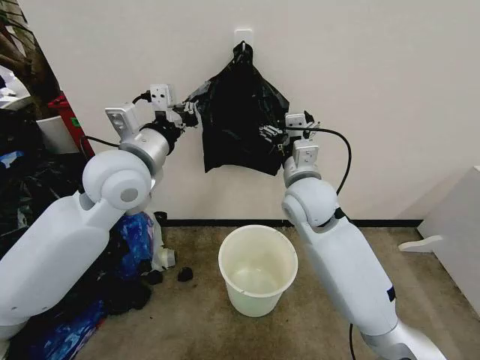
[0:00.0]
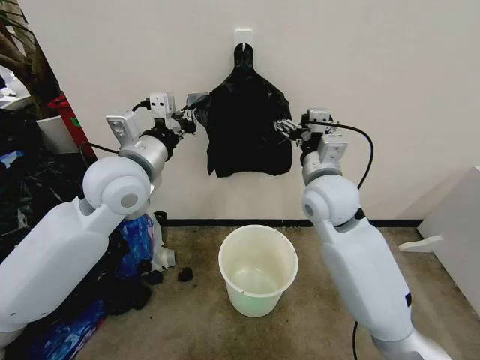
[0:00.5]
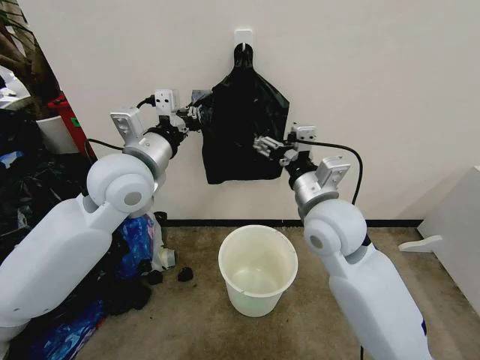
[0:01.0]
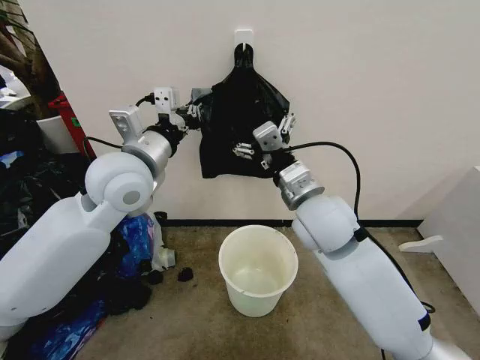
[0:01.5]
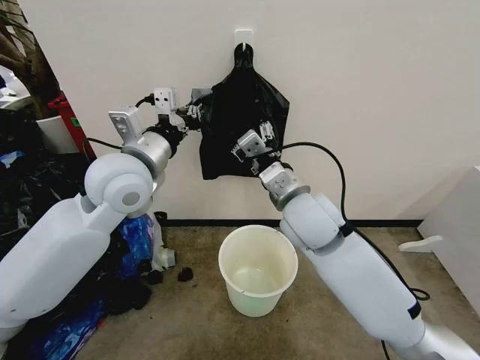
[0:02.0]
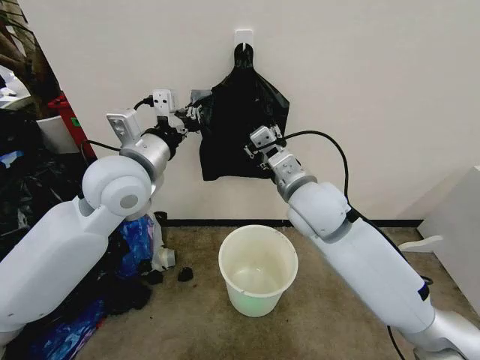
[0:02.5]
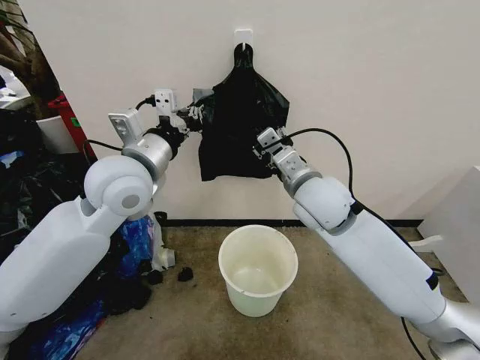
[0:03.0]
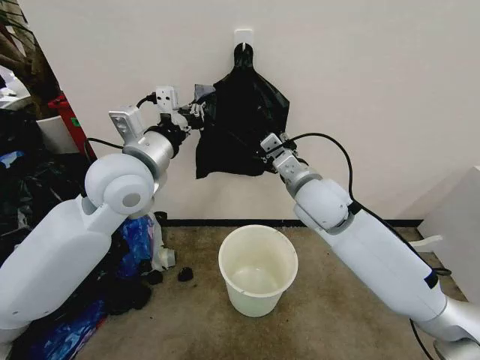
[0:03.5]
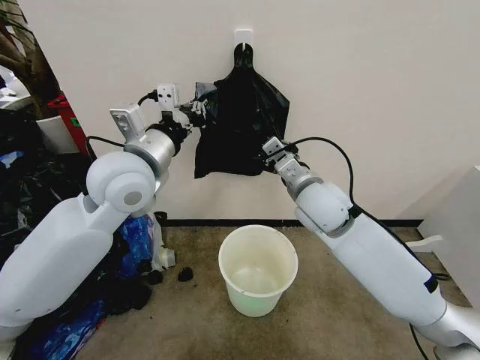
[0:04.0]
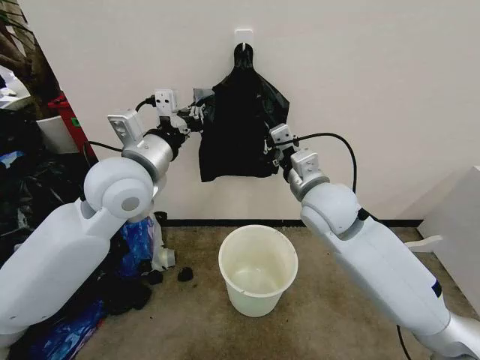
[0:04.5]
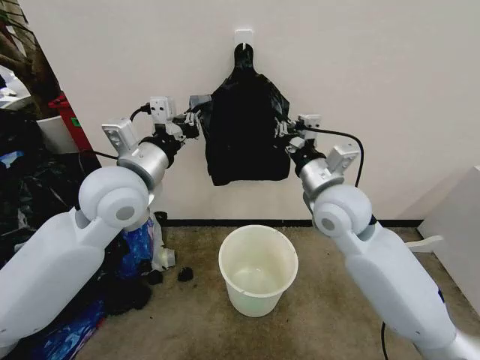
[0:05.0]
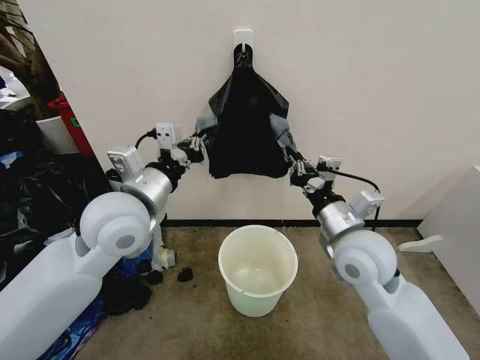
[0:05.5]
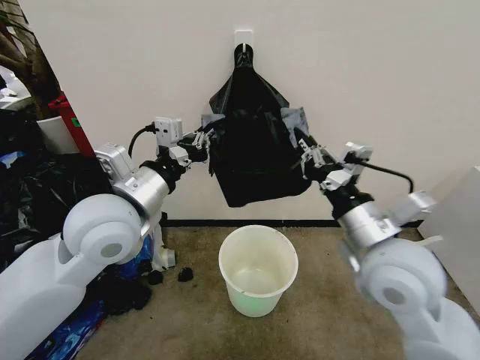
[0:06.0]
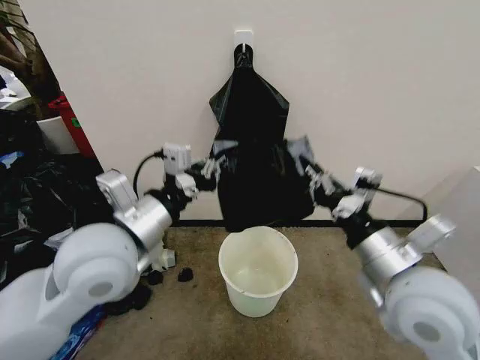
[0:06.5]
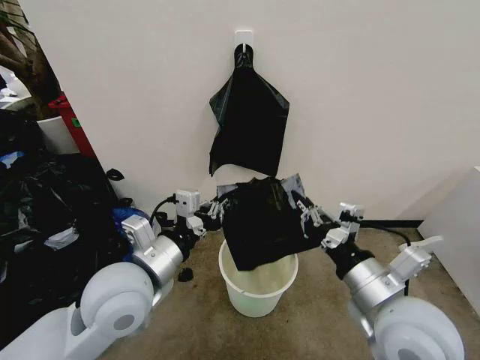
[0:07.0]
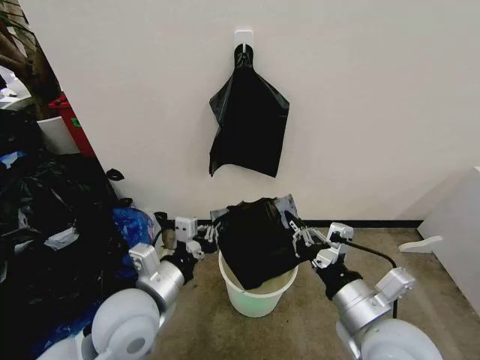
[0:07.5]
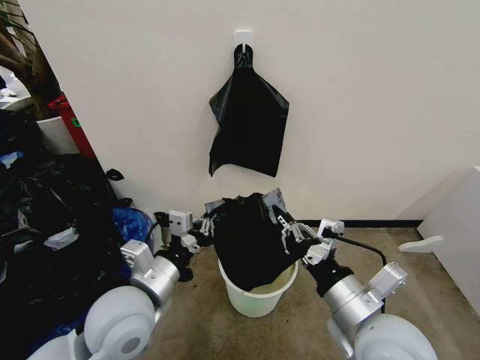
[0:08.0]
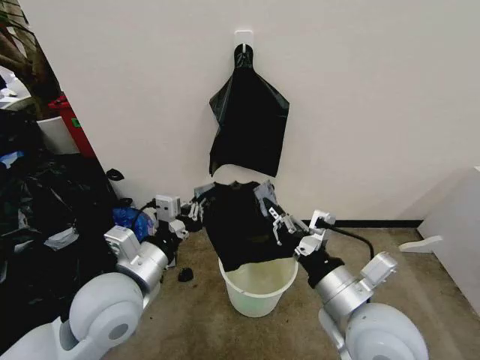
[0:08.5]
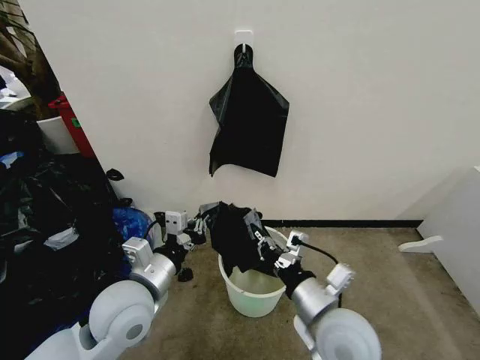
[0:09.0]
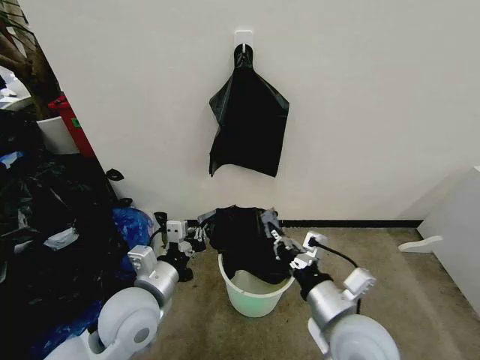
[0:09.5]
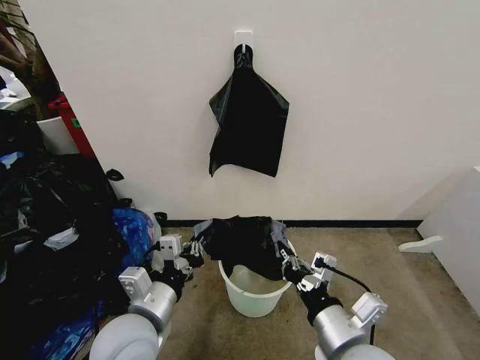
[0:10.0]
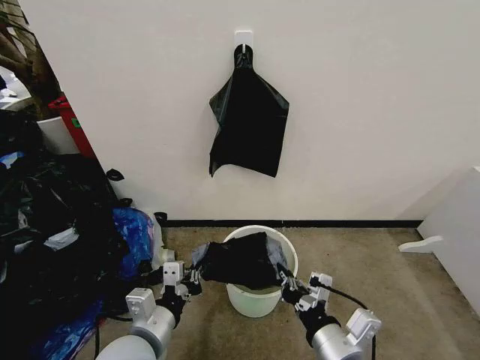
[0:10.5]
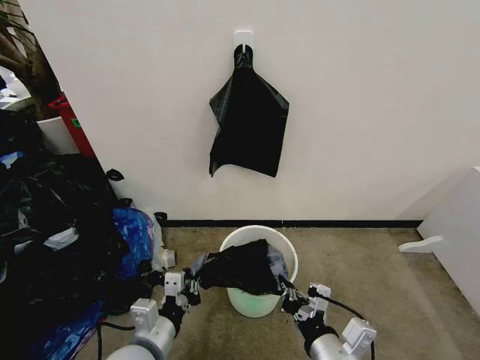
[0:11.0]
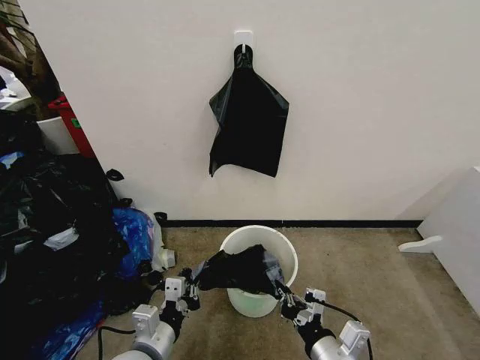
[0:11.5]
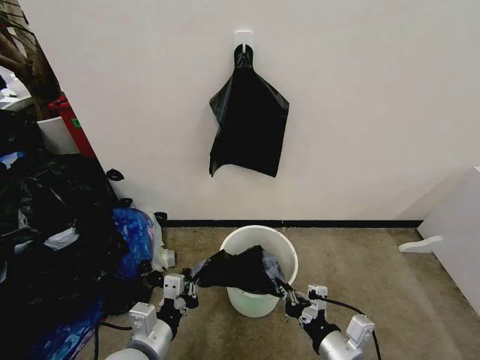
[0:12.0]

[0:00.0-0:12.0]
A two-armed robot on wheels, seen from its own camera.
Task of the whole recording: Place the garbage bag over the trash bin.
0:00.0 to 0:02.0: The right gripper shifts some 5 cm backward, and closes.
0:02.0 to 0:04.0: The right gripper shifts by approximately 5 cm, and closes up.
0:04.0 to 0:06.0: The right gripper heads backward and to the right, covering about 15 cm. Meanwhile the left gripper heads backward, covering about 5 cm.
0:06.0 to 0:08.0: The right gripper travels backward and downward by approximately 10 cm; the left gripper moves downward and backward, roughly 15 cm.
0:08.0 to 0:10.0: The right gripper moves some 5 cm.
0:10.0 to 0:12.0: The grippers both shift downward by some 10 cm.

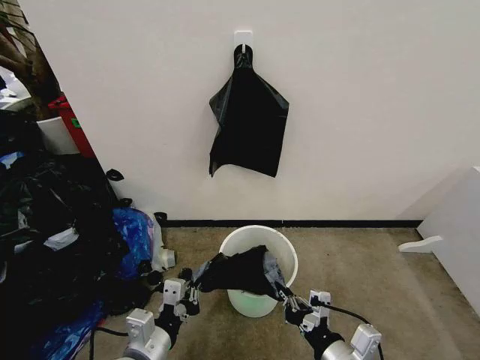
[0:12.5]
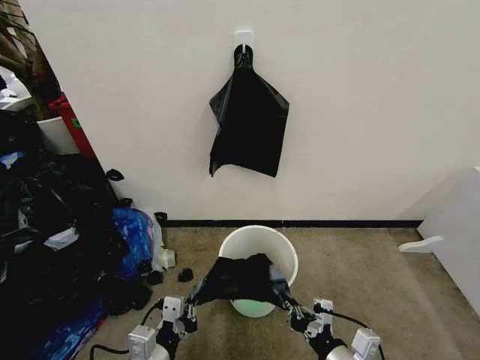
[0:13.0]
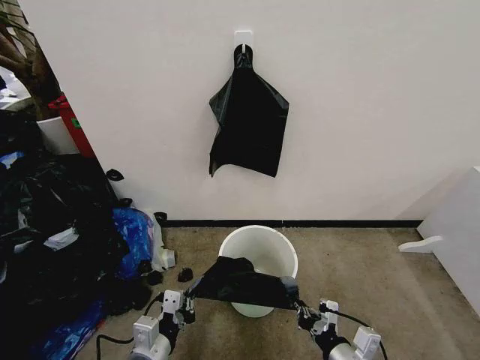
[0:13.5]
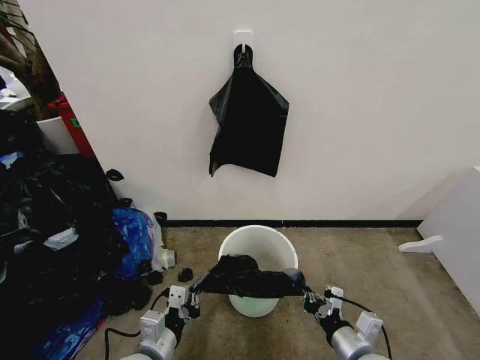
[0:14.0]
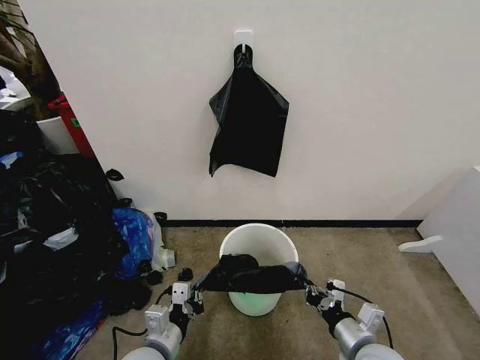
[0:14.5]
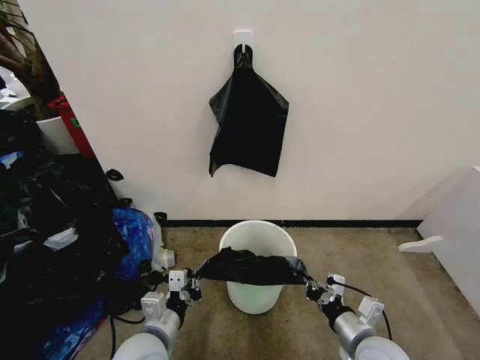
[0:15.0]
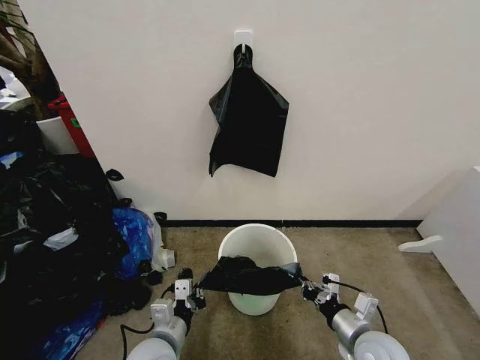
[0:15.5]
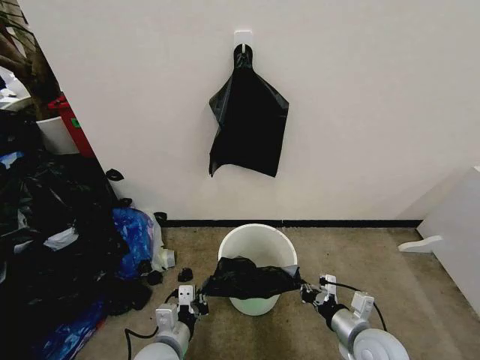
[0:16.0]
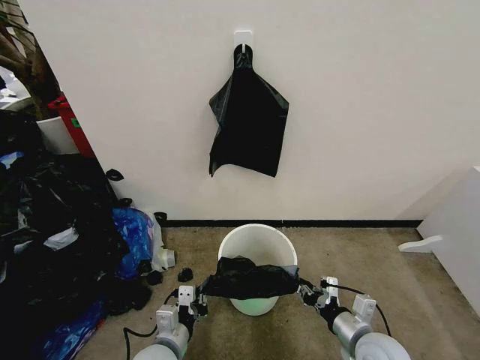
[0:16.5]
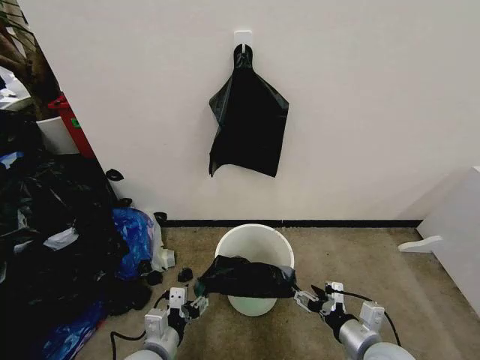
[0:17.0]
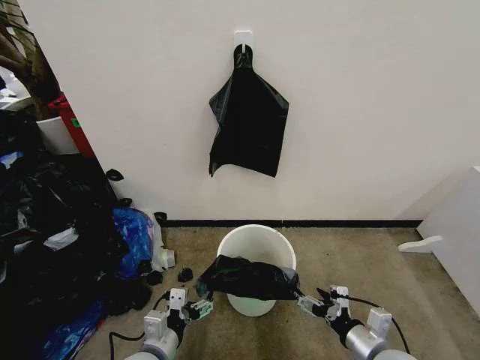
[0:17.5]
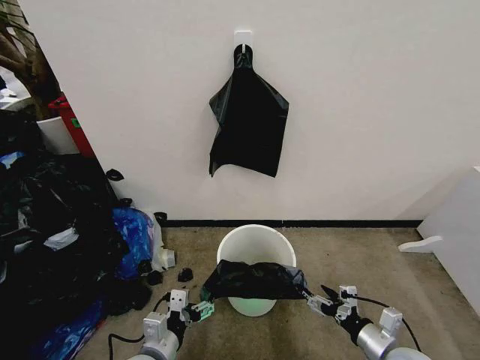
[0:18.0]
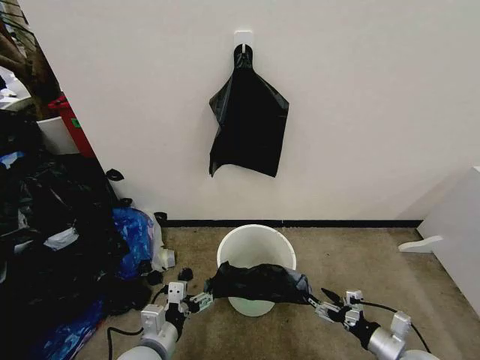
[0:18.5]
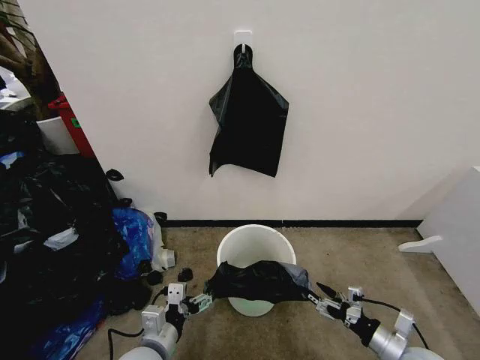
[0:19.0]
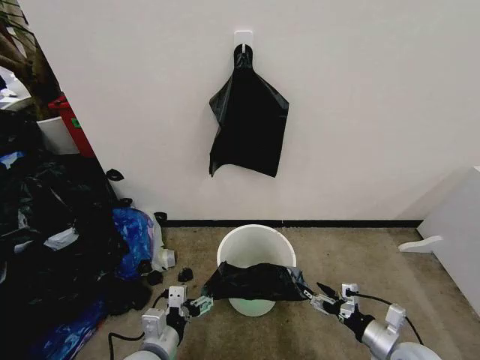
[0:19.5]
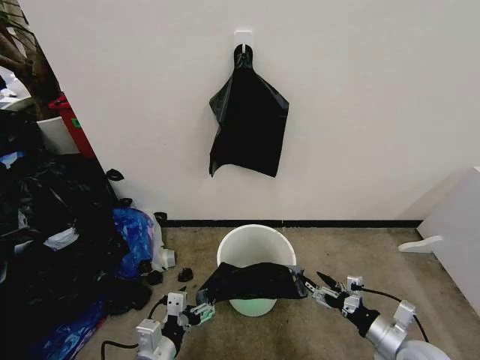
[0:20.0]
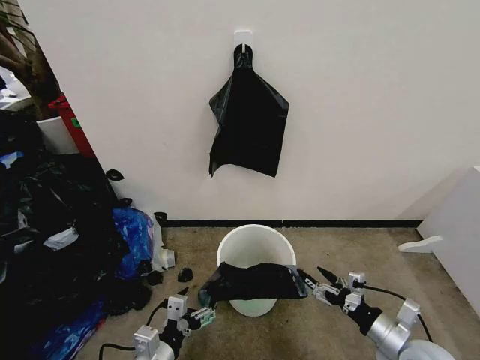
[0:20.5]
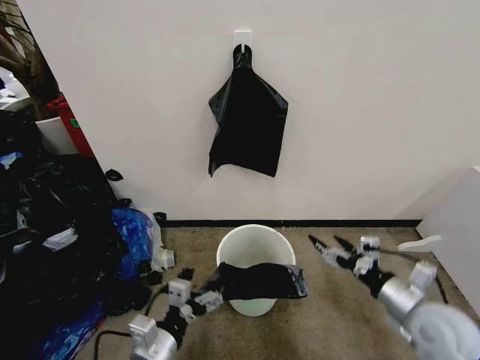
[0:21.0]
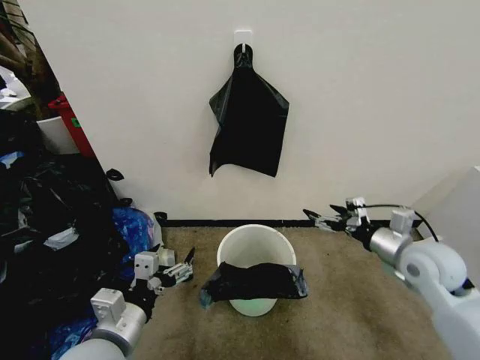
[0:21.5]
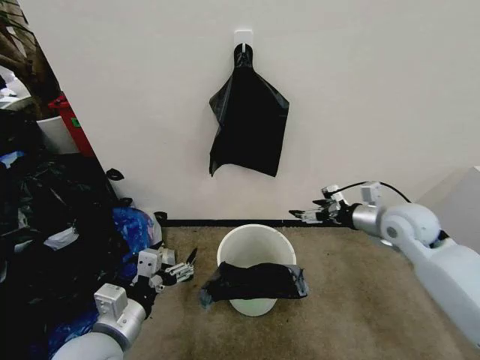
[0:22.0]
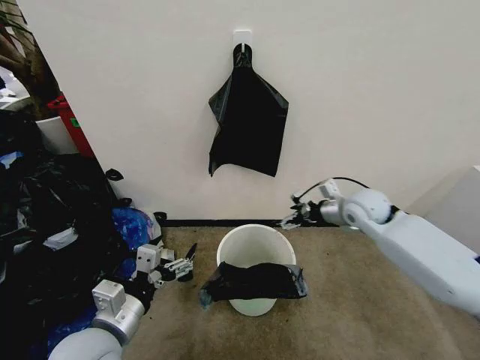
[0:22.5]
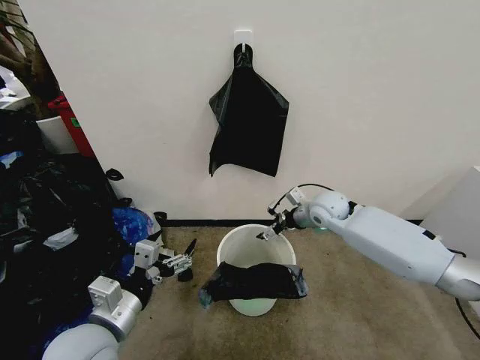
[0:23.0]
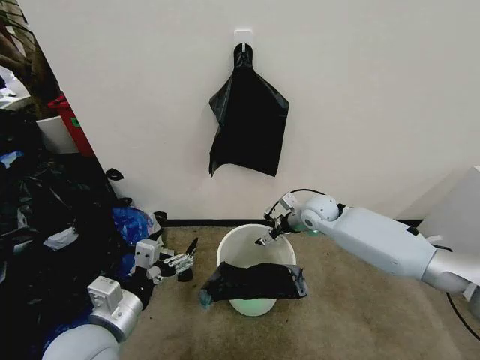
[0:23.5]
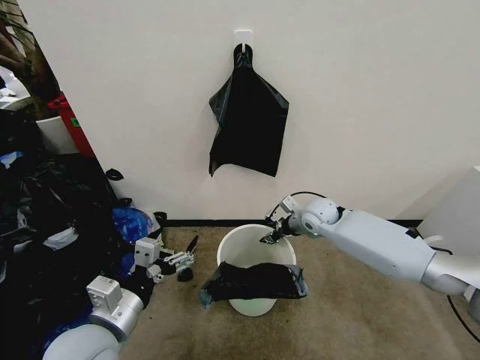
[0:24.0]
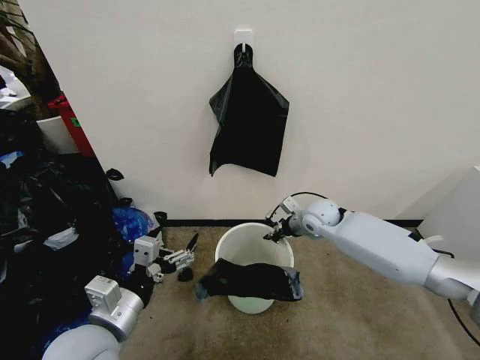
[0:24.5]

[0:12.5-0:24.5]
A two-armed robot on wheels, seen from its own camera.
Task of the whole recording: Place the garbage bag over the trash bin.
0:12.5 to 0:14.5: The right gripper shifts approximately 10 cm downward, forward and to the right; the left gripper moves downward, some 5 cm.
0:14.5 to 0:16.5: The grippers make only small movements.
0:16.5 to 0:18.5: The left gripper opens. Meanwhile the right gripper heads to the right, covering roughly 10 cm, and opens up.
0:18.5 to 0:20.5: The right gripper goes about 5 cm upward.
0:20.5 to 0:22.5: The left gripper heads upward, covering approximately 10 cm. The right gripper goes about 30 cm forward and upward.
0:22.5 to 0:24.5: The right gripper is displaced to the left and downward by about 10 cm, and closes its fingers.

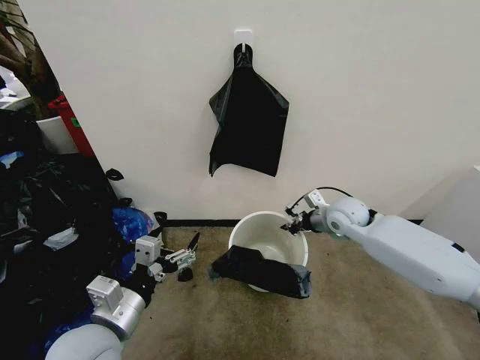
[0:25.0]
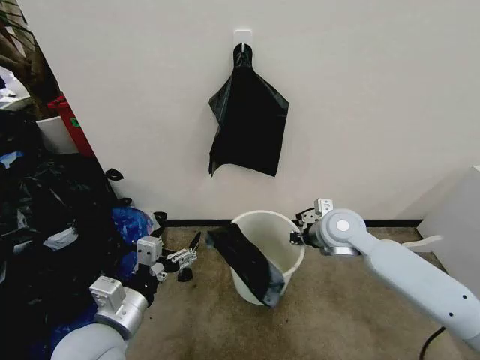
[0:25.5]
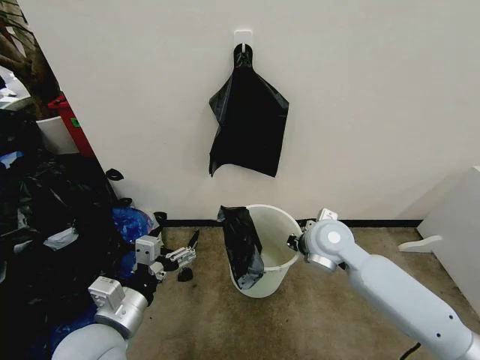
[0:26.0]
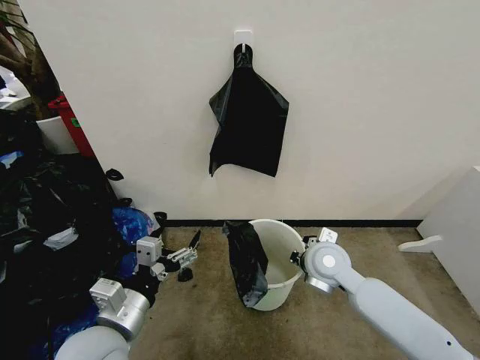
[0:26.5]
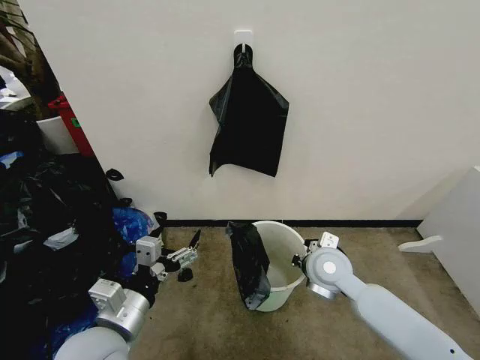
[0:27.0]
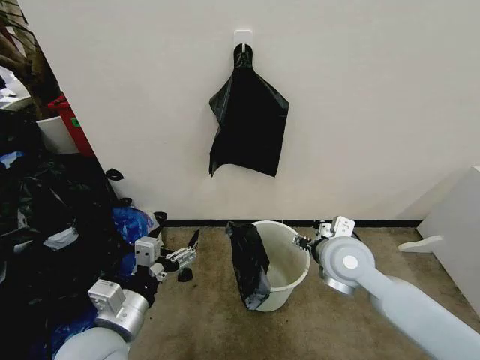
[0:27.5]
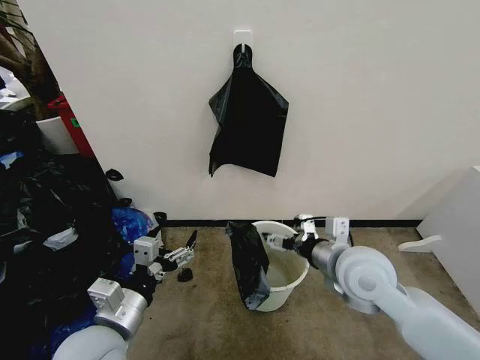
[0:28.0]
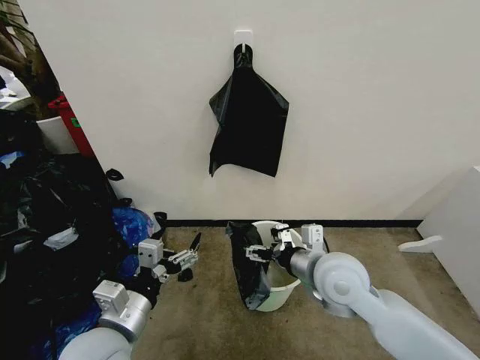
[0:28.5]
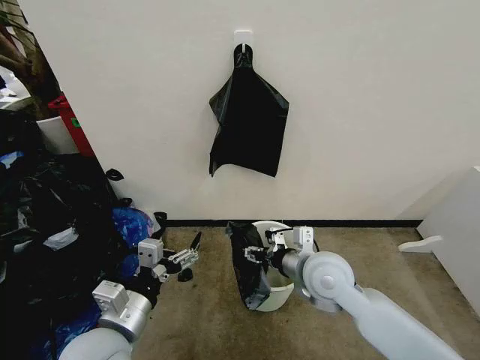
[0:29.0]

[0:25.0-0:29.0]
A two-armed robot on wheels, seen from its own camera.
Task of the whole recording: Place the garbage bag over the trash bin.
0:25.0 to 0:27.0: The right gripper goes about 15 cm backward and to the left.
0:27.0 to 0:29.0: The right gripper opens.
